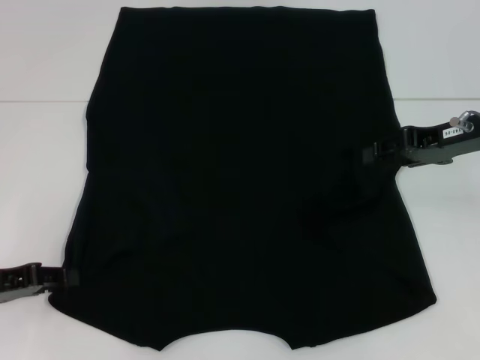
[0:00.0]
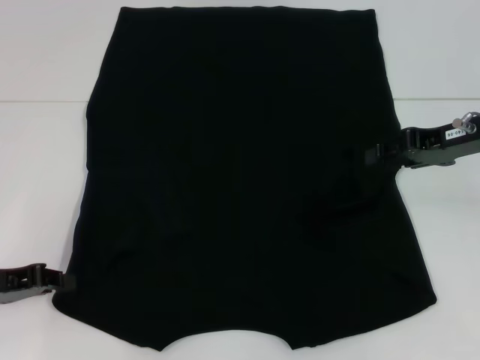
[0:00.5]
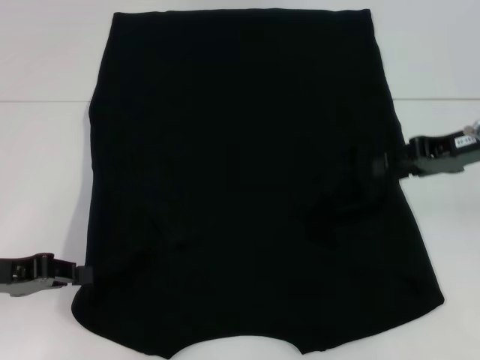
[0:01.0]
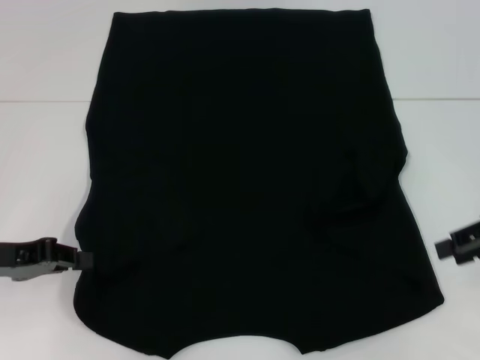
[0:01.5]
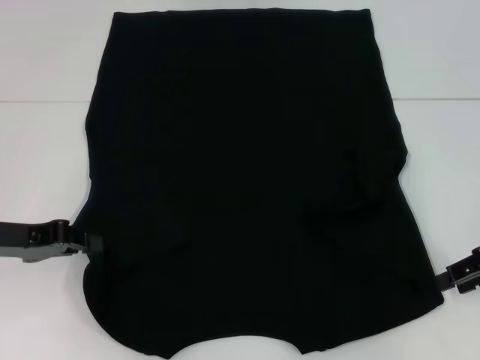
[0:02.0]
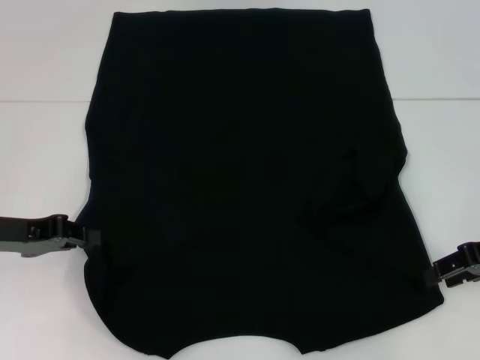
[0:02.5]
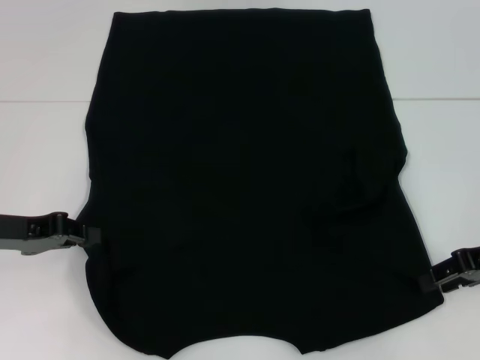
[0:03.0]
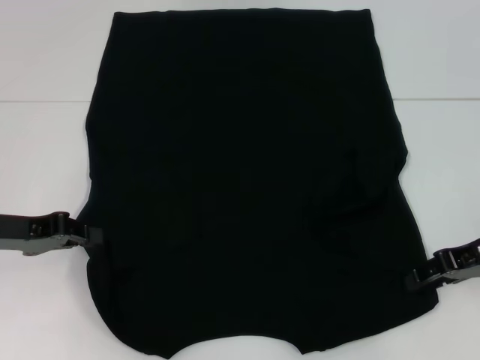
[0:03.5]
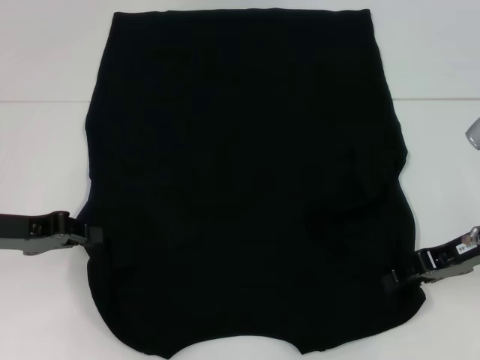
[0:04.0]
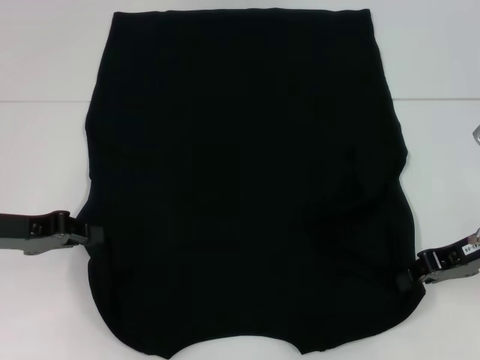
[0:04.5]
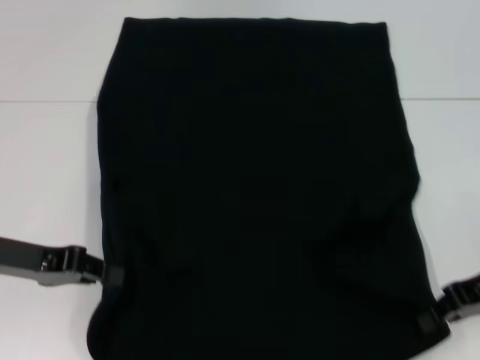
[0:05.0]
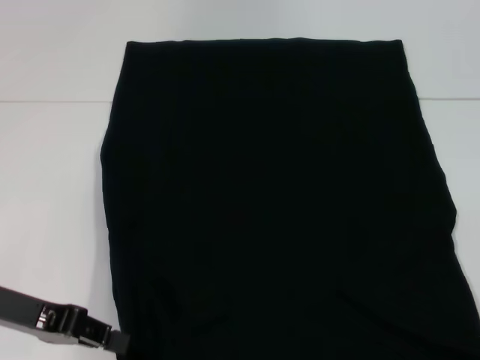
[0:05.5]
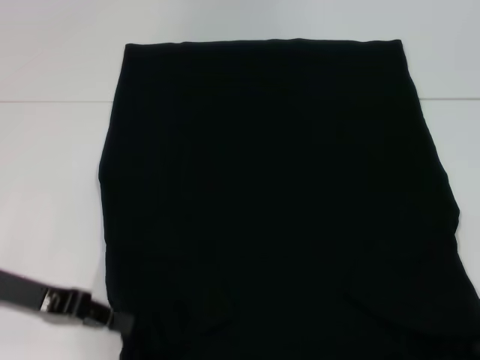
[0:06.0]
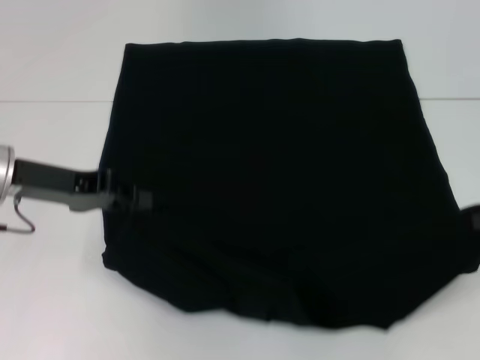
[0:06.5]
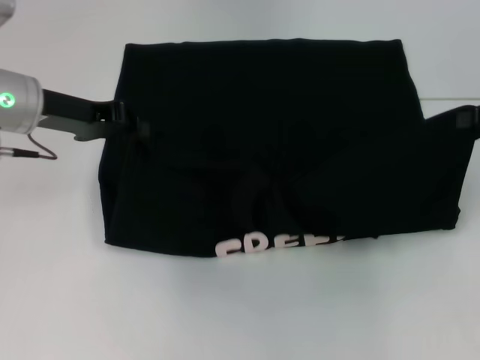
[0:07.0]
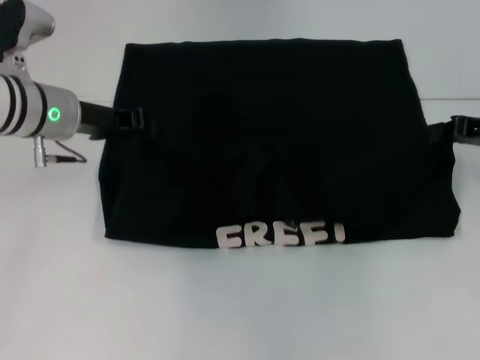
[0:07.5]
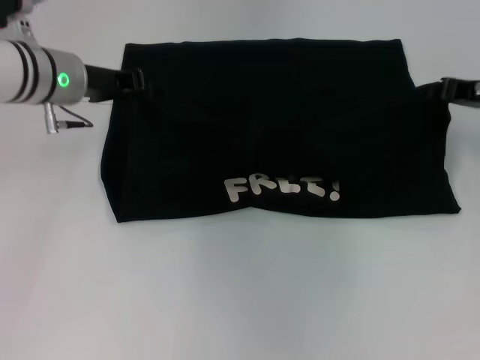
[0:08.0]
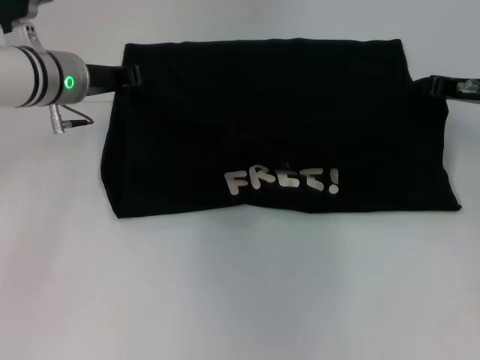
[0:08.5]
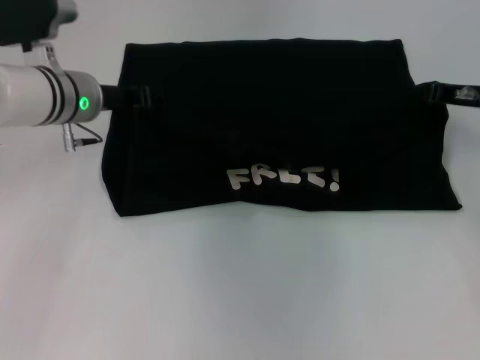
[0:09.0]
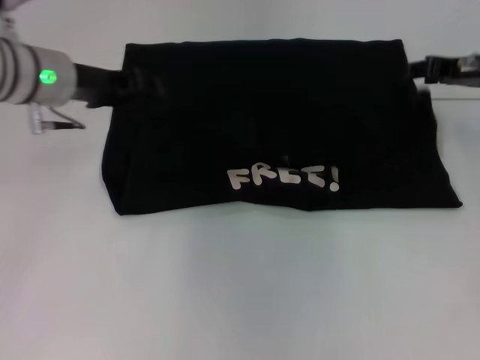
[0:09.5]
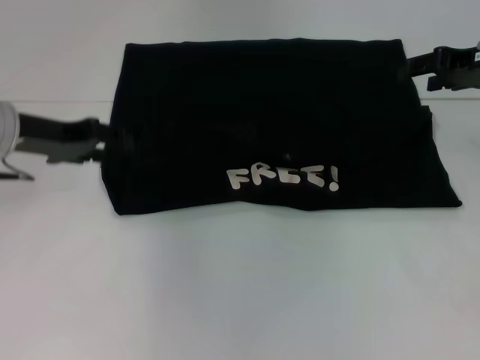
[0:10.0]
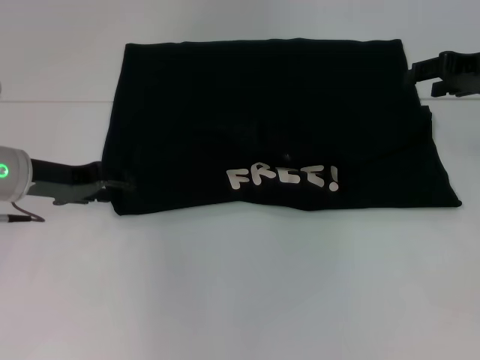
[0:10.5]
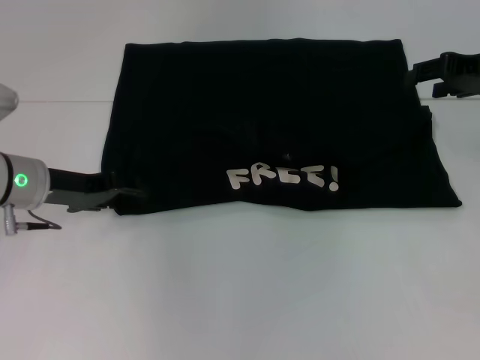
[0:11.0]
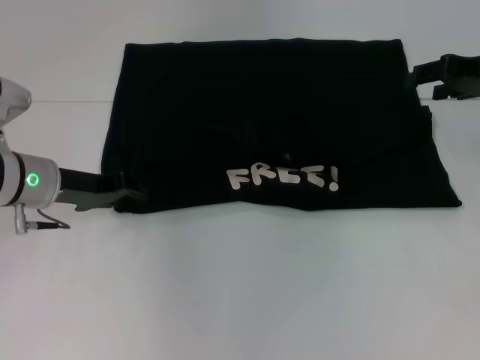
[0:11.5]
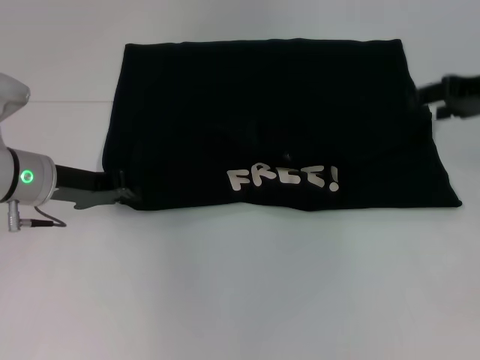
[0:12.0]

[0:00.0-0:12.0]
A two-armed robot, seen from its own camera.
Step, 0:01.0 to 0:04.5: Grab the bottom right corner with your right hand.
Step, 0:05.0 to 0:09.5: Fold the clothes with your left hand.
Step, 0:05.0 to 0:09.5: Fold the clothes with your right hand.
0:00.0 to 0:02.0: The right gripper is displaced backward and to the right by approximately 10 cm; the left gripper shifts by roughly 5 cm, and closes.
0:02.0 to 0:04.0: The right gripper goes roughly 5 cm to the left.
0:04.0 to 0:06.0: The right gripper travels to the right and backward by roughly 10 cm, and closes its fingers.
0:06.0 to 0:08.0: Both grippers travel together forward, about 15 cm.
0:08.0 to 0:10.0: The left gripper travels to the left and backward by about 10 cm, and opens. Meanwhile the right gripper goes some 5 cm upward, and opens up.
0:10.0 to 0:12.0: The left gripper goes some 5 cm downward, and closes up.

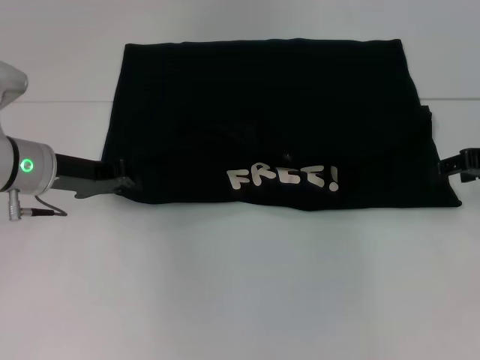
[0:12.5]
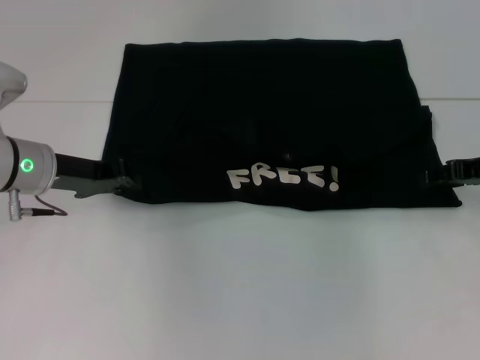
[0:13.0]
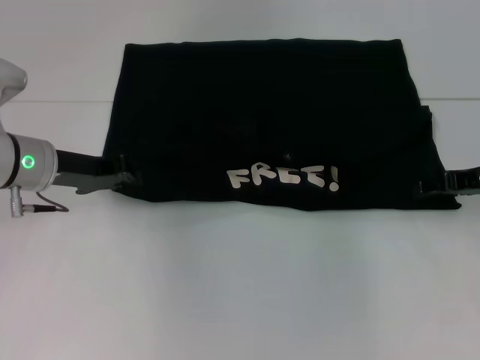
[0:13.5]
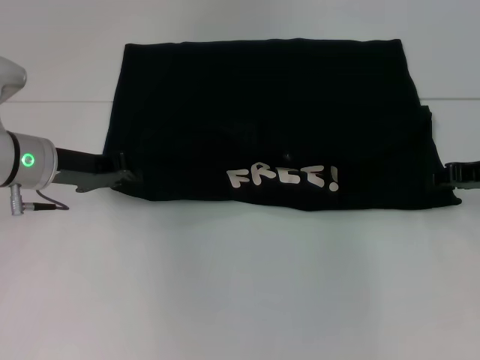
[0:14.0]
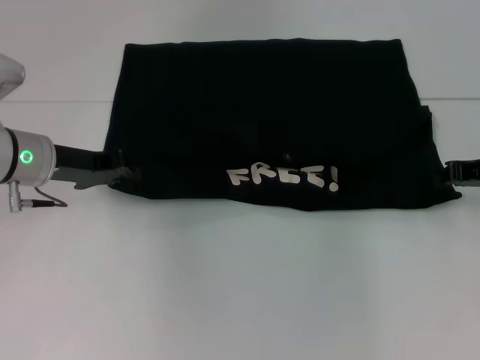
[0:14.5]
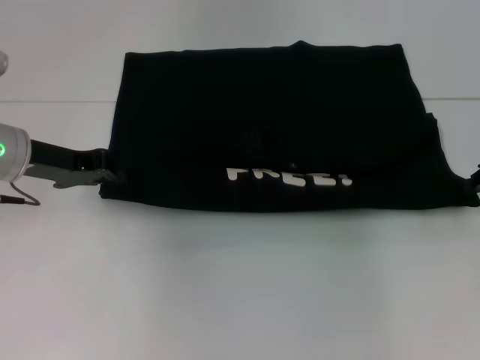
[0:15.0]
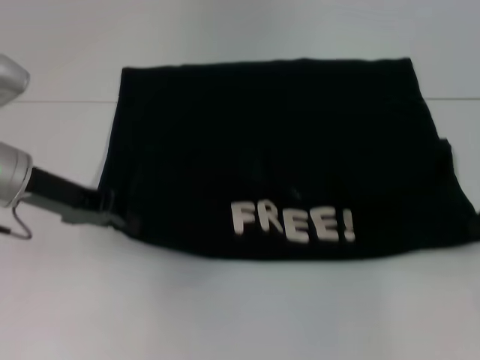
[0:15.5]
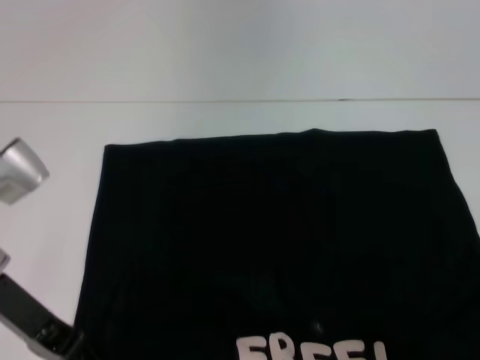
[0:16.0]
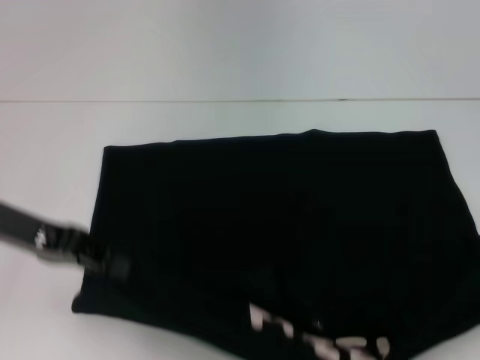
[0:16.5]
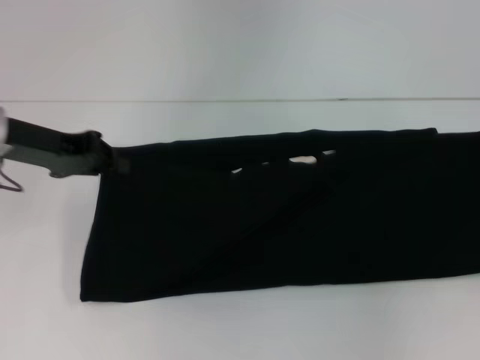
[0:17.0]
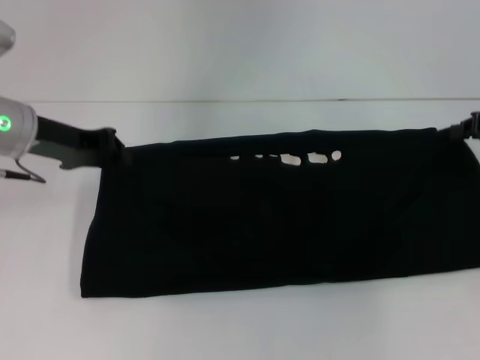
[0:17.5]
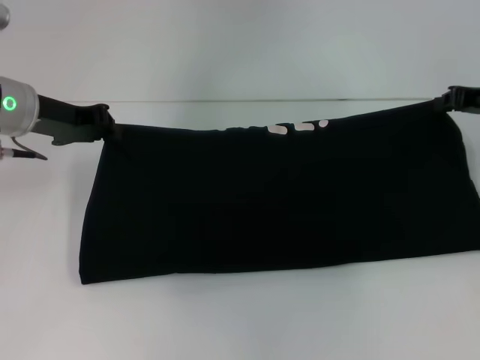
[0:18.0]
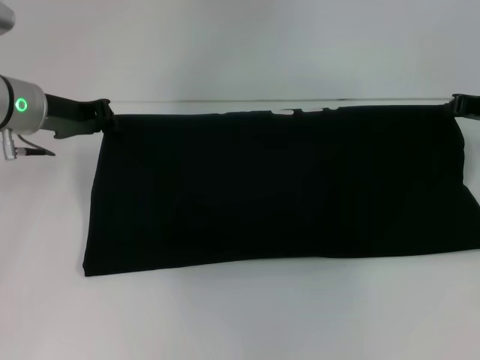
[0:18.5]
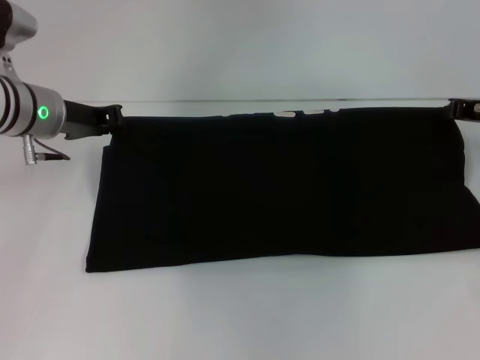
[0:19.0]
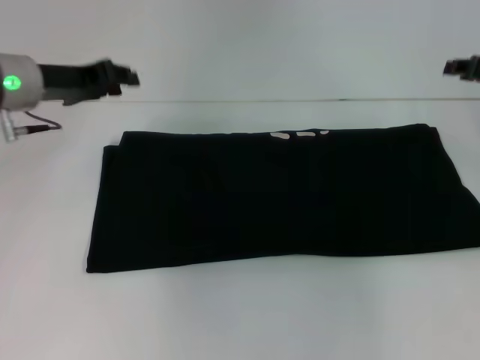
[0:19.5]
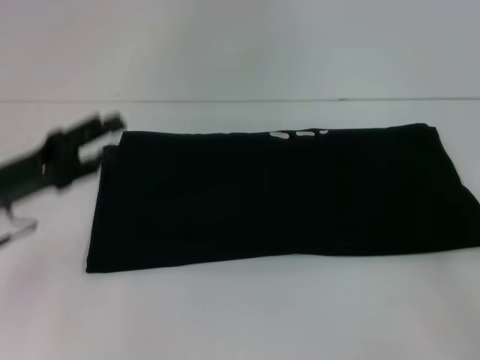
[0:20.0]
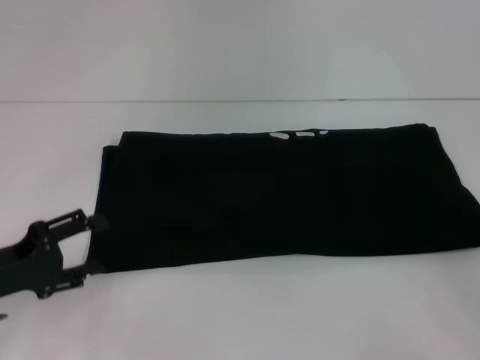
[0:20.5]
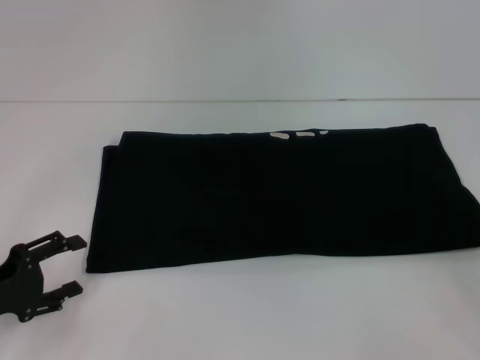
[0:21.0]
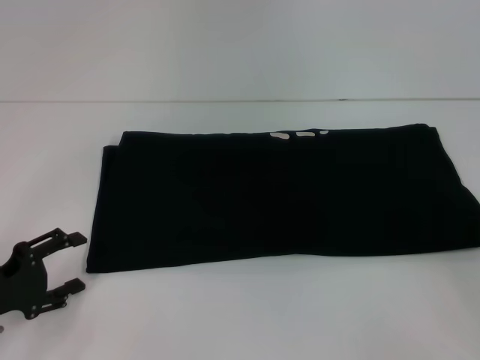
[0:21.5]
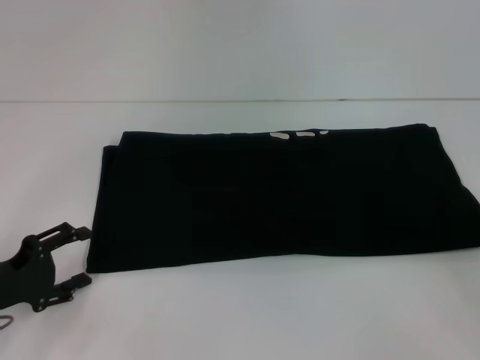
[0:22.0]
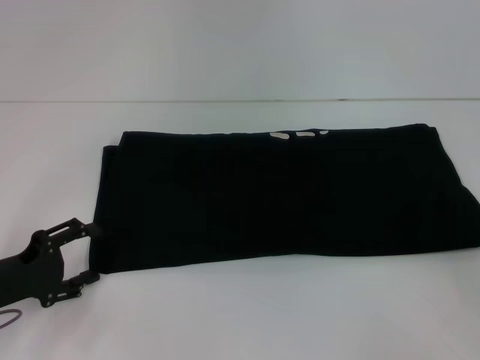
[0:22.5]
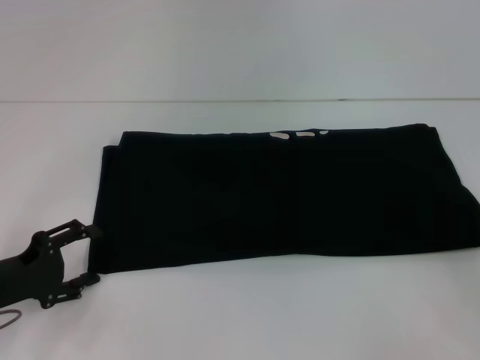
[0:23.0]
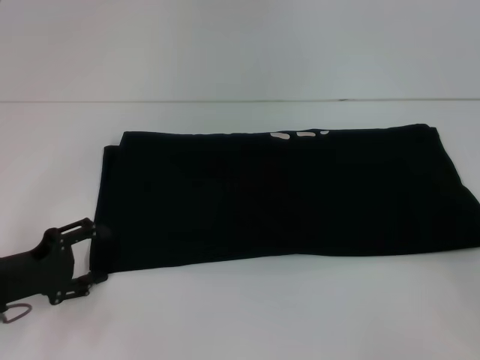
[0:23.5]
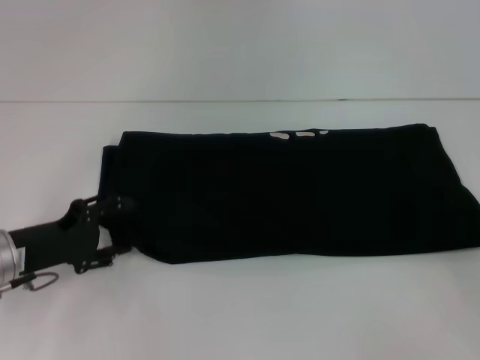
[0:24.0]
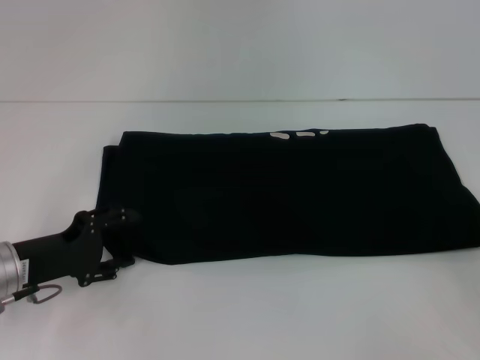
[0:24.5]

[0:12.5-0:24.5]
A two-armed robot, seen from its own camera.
Step, 0:12.5 to 0:16.0: Pull the clothes with your left hand.
Step, 0:12.5 to 0:16.0: Pull the clothes with your right hand.
Step, 0:16.5 to 0:19.0: Fold the clothes with your right hand.
0:12.5 to 0:14.5: The right gripper closes up.
0:14.5 to 0:16.5: The left gripper is displaced backward and upward by about 10 cm. The right gripper is displaced backward, to the right and upward by about 15 cm.
0:16.5 to 0:18.5: The right gripper shifts roughly 15 cm forward and to the left. The left gripper shifts approximately 10 cm forward.
0:18.5 to 0:20.5: The left gripper moves backward and downward, about 20 cm, and opens. Meanwhile the right gripper moves backward, some 20 cm, and opens up.
0:20.5 to 0:24.5: The grippers stay close to where they were, moving slightly.

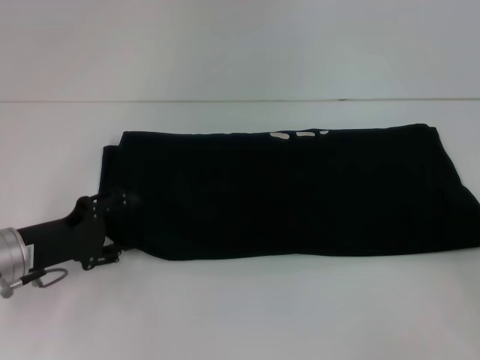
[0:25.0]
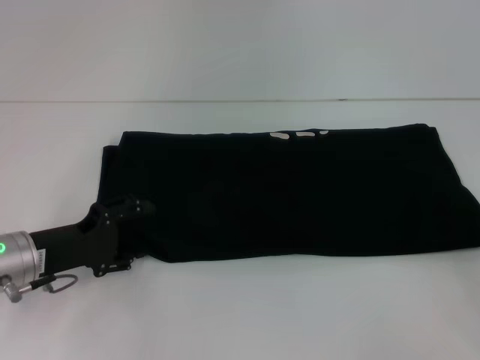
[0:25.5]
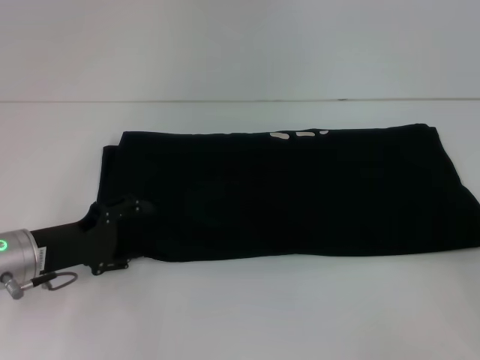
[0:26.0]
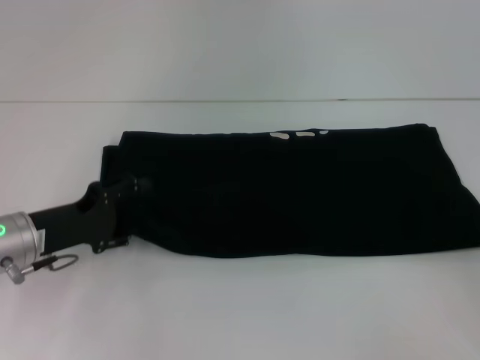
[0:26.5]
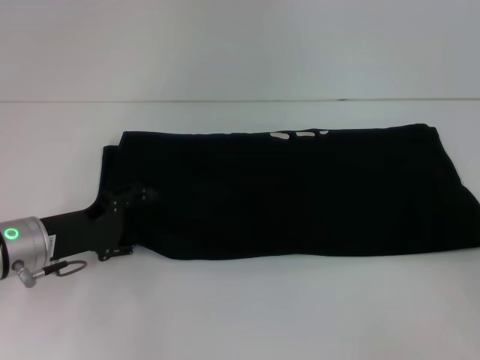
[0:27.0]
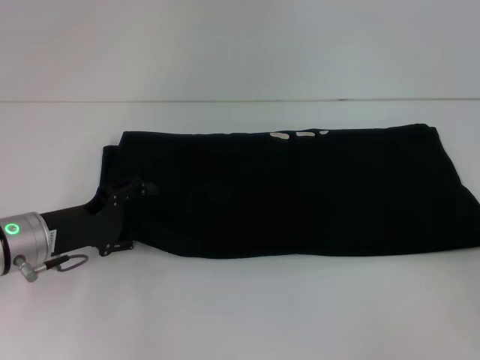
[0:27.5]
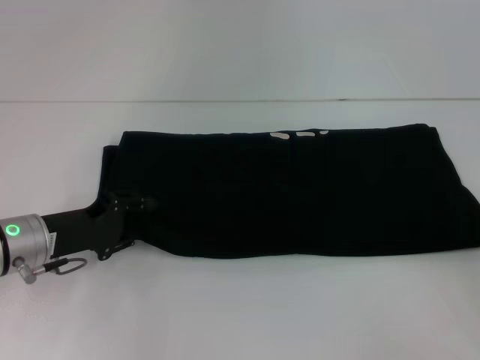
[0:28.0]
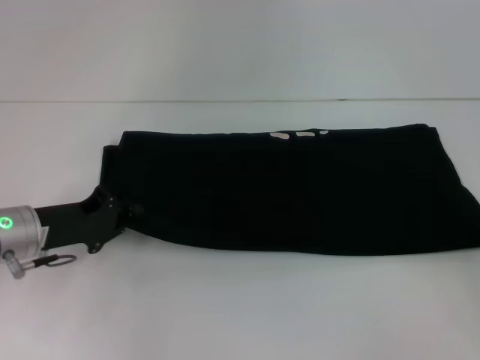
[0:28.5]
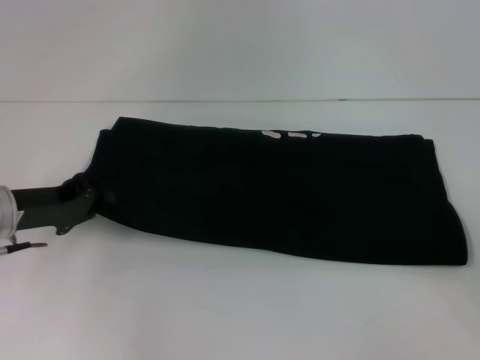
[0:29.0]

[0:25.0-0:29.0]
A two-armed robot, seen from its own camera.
0:25.0 to 0:27.0: The grippers stay close to where they were, moving slightly.
0:27.0 to 0:29.0: The left gripper closes its fingers.
